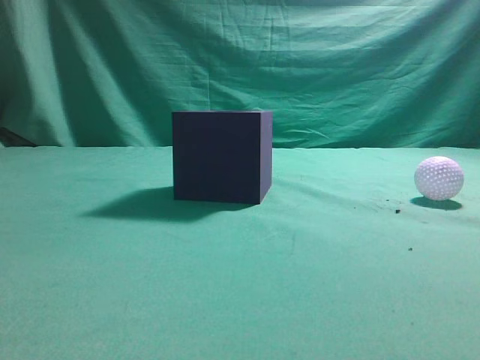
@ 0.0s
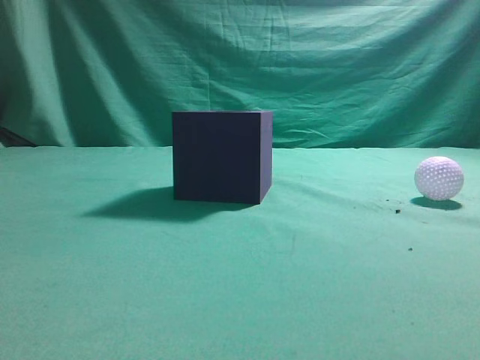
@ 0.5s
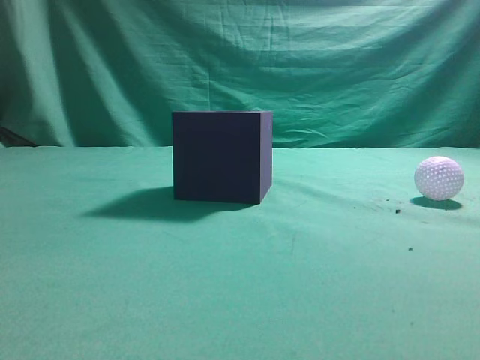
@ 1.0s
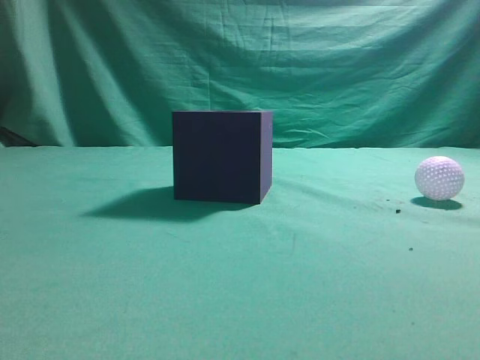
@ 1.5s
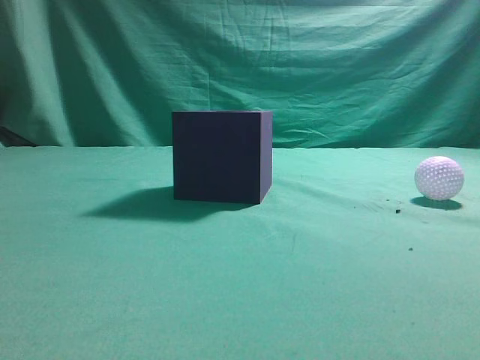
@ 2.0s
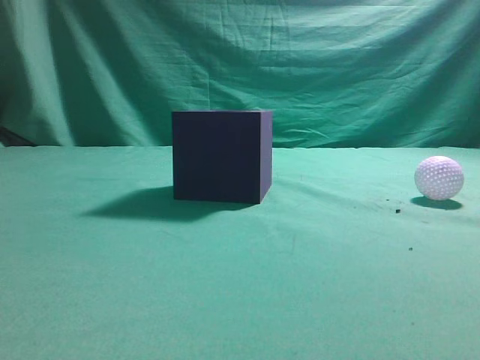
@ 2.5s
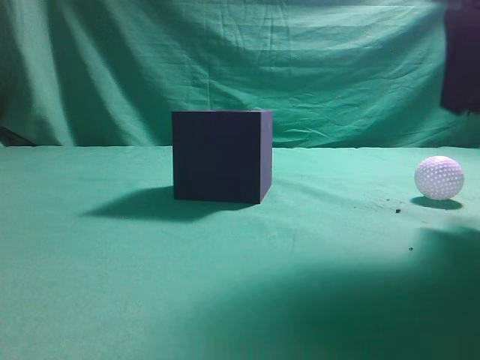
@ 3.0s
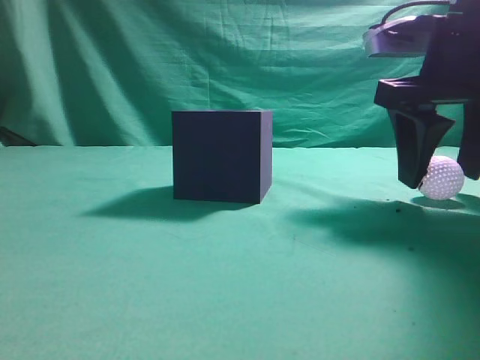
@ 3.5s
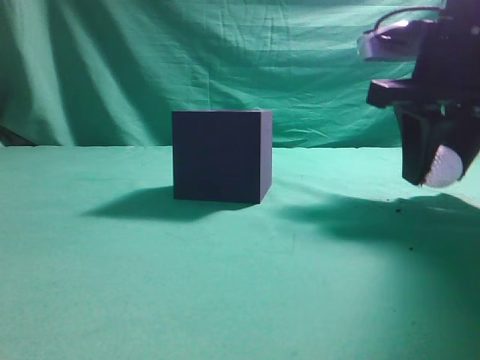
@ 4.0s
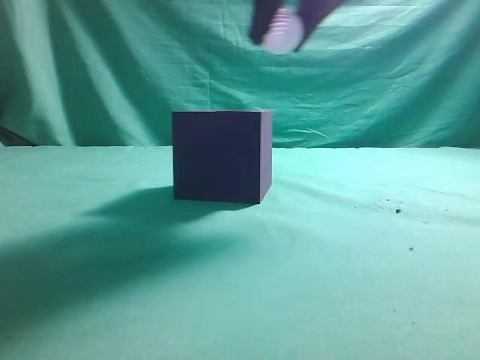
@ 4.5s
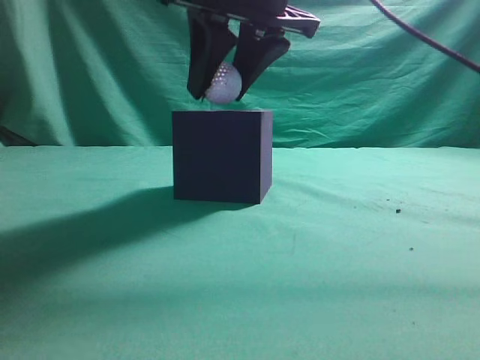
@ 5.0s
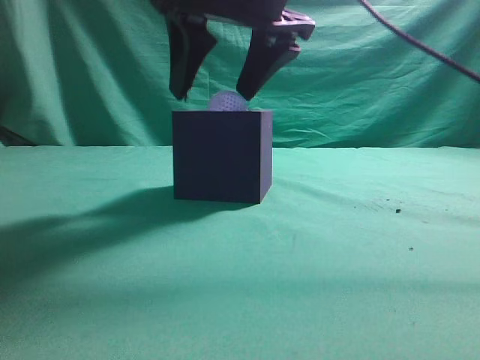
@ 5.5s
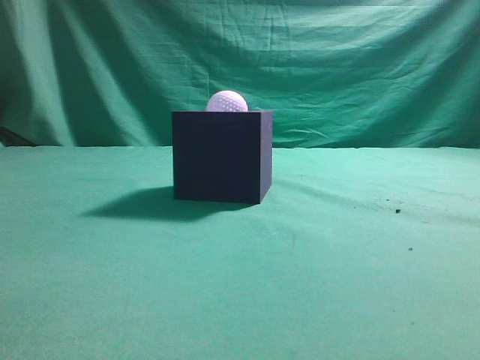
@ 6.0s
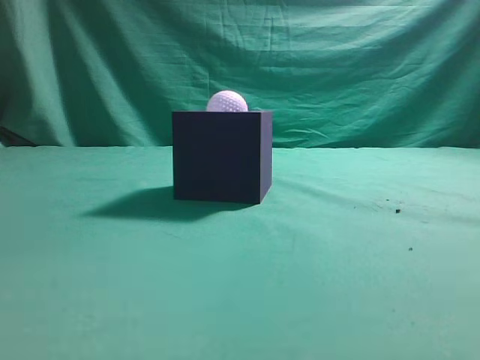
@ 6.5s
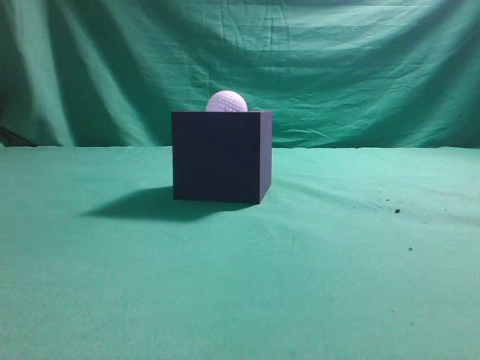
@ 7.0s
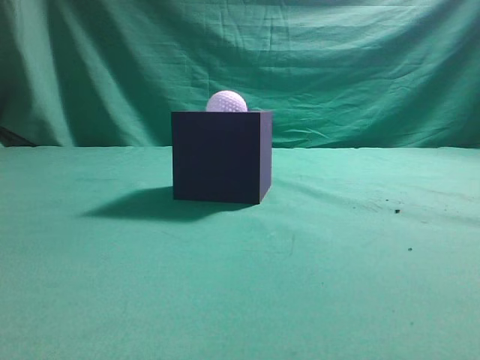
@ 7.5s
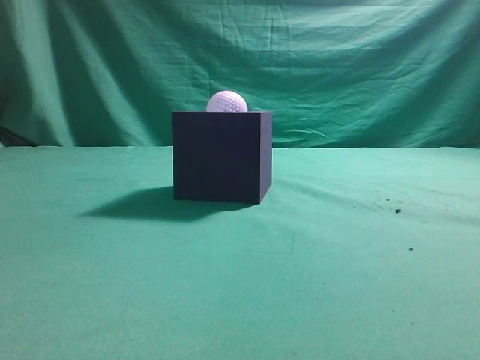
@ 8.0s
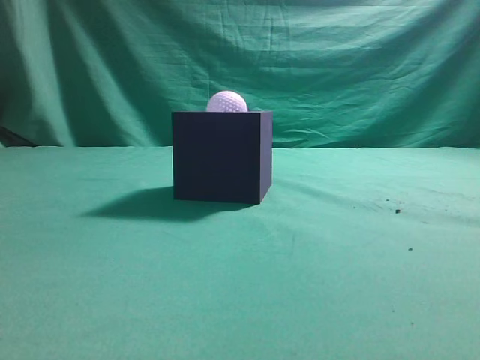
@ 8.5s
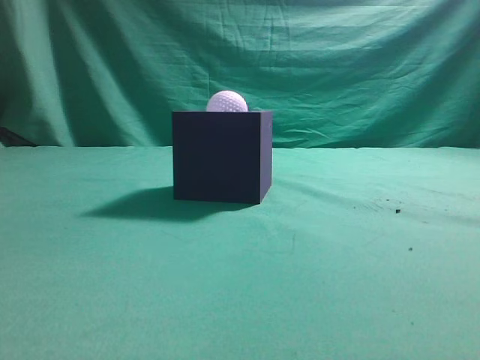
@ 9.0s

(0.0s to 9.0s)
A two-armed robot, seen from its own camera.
Task of the whole recording: Pick up the ball and place it in the circular groove above the cube.
Step, 0.0s - 4.0s: Grasp the sphere on the table.
Step, 4.5s - 5.5s: Place the sphere into the sphere-shaped recess.
2.0s - 4.5s: The right gripper goes some 30 cm forward and to the left, and opens.
4.5s - 7.0s: The right gripper goes roughly 30 cm backward and to the right, and closes.
